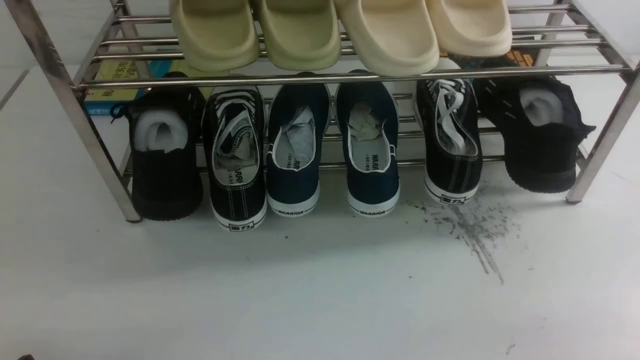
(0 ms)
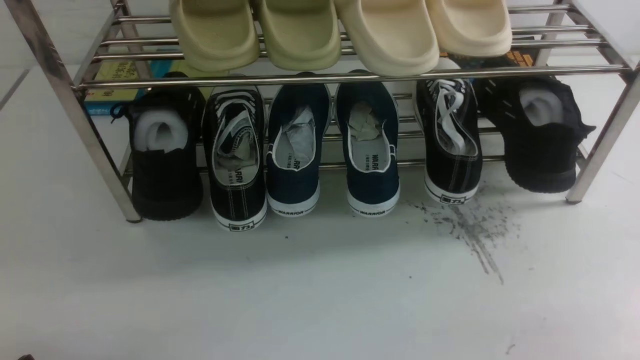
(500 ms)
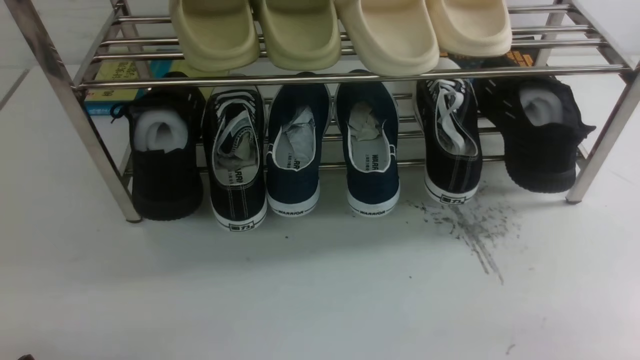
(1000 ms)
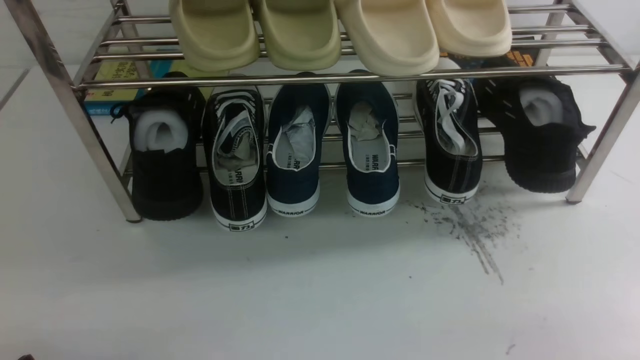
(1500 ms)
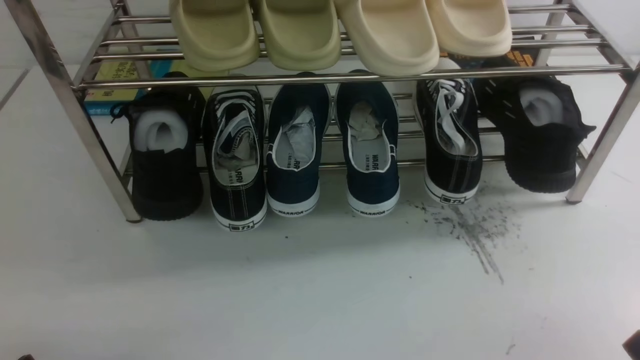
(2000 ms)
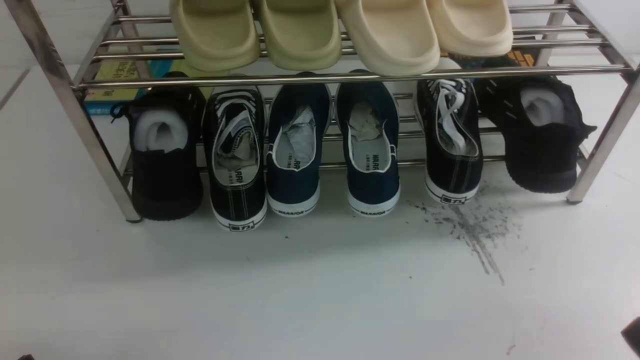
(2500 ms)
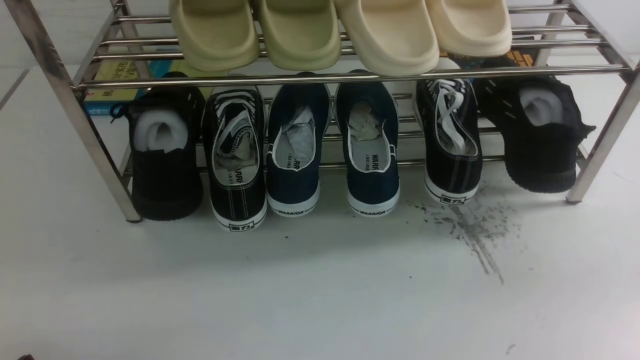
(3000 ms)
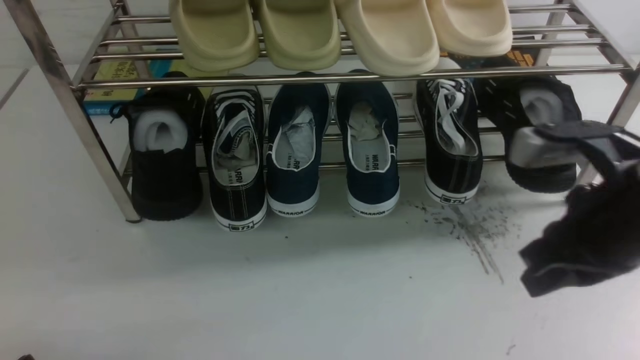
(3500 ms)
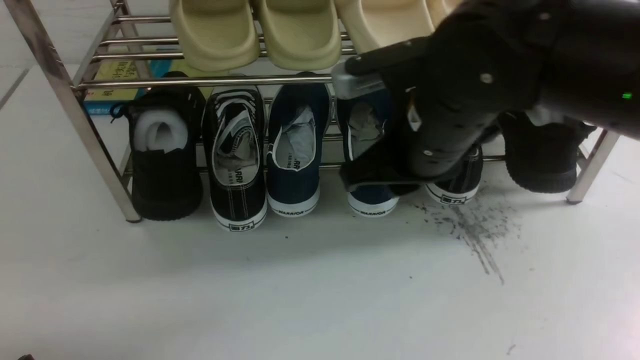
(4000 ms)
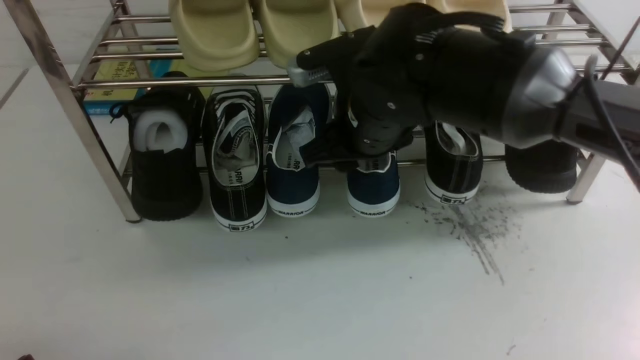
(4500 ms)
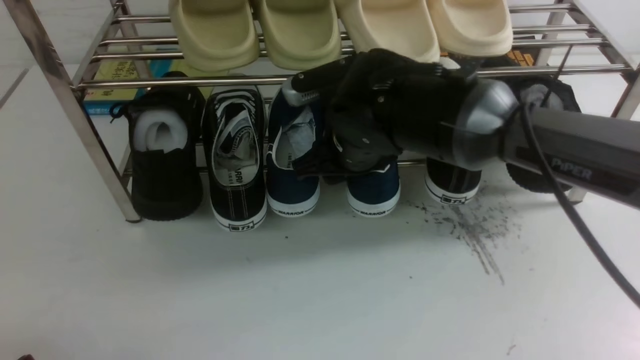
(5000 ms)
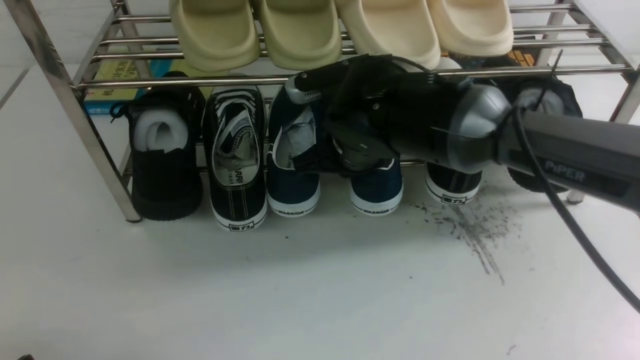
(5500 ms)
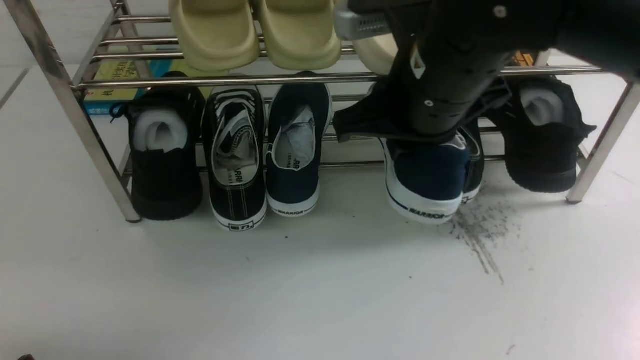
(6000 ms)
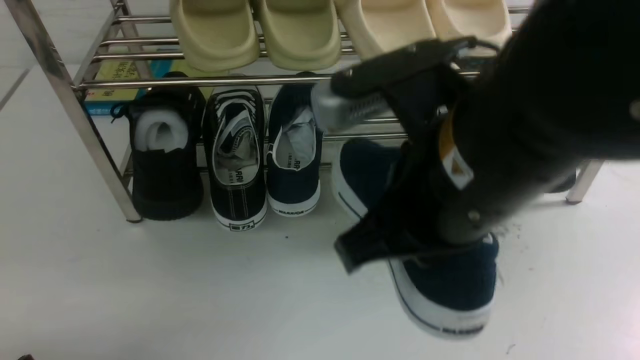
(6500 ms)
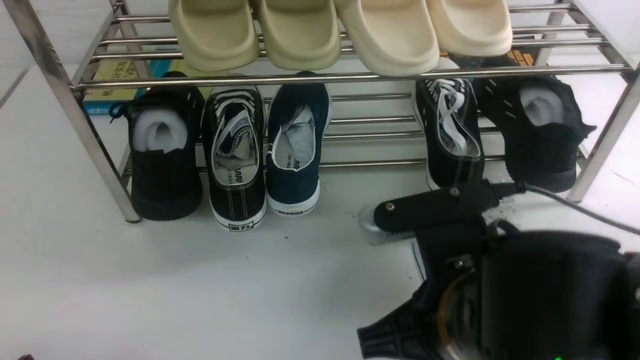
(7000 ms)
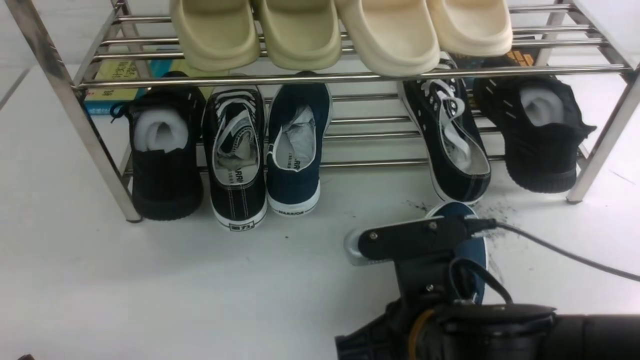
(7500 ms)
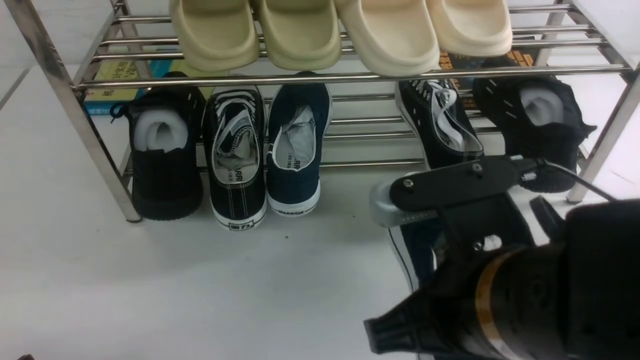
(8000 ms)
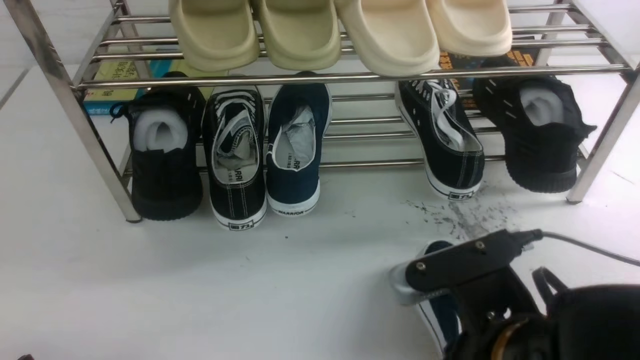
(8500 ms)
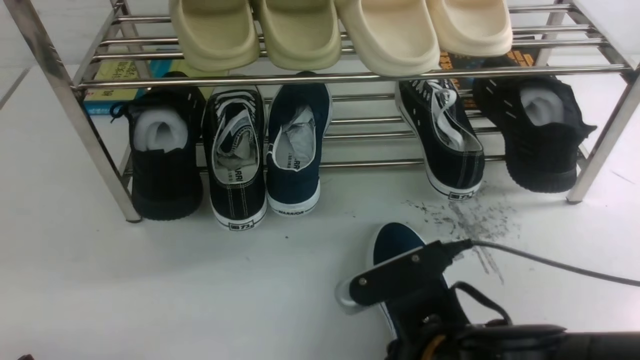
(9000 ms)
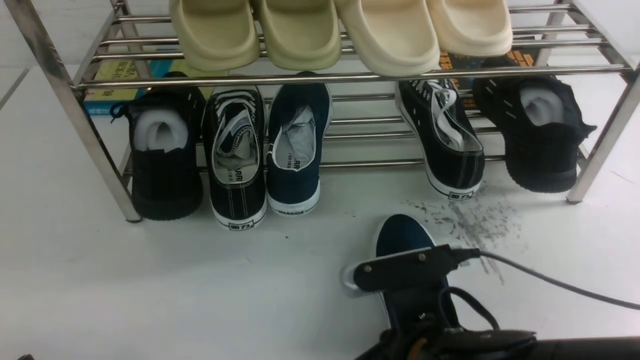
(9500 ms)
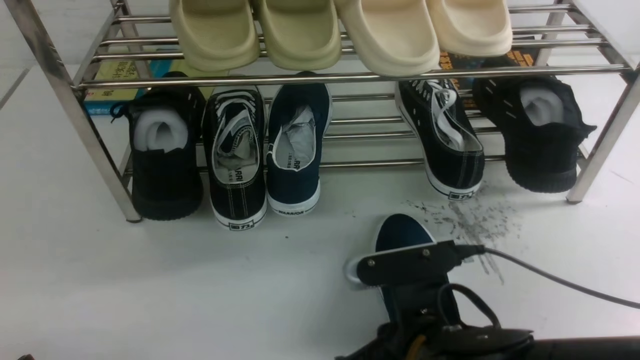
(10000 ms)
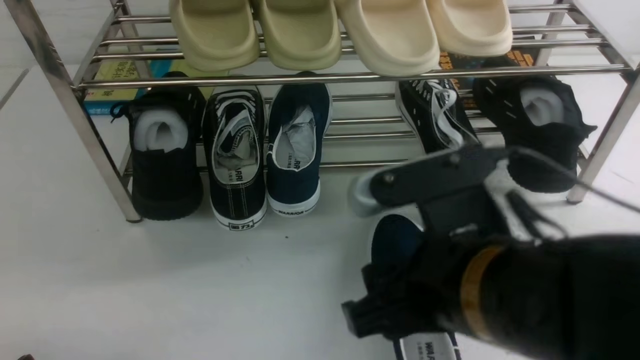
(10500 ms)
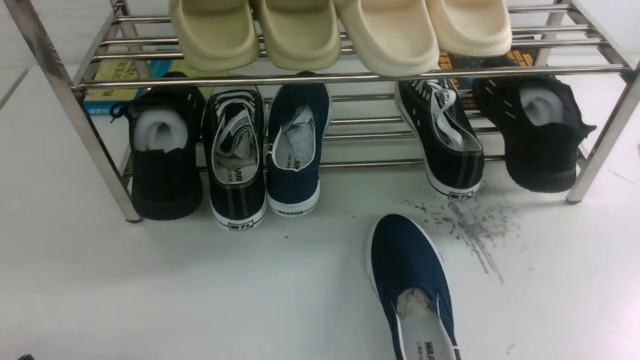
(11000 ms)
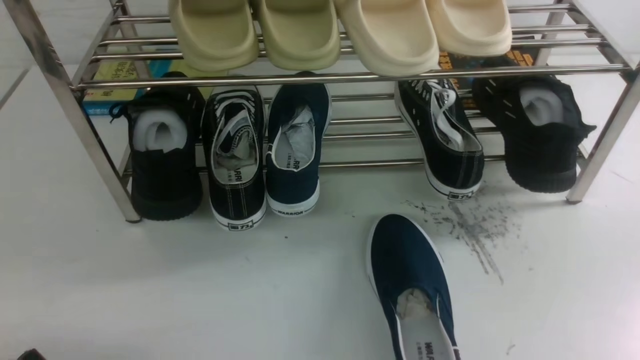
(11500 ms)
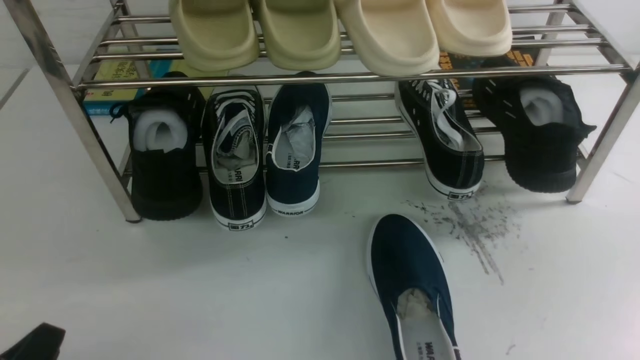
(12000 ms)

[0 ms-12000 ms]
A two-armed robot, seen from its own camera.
Step, 0 ms to 5500 ms: use the right arm to clamp a shoe in the middle of the shoe rack.
Step, 6000 ms to 10500 ms: use the right arm to take out the clamped shoe from the shoe rack and put it down.
2000 ms to 4000 ms: The right gripper heads forward, to the left and upward, covering about 35 cm, and closes, then reopens.
4000 ms to 6000 ms: The right gripper closes its fingers.
6000 ms to 8000 ms: The right gripper travels backward and downward by approximately 15 cm.
8000 ms to 10000 ms: The right gripper travels downward by about 10 cm, and opens.
10000 ms to 12000 ms: The right gripper goes approximately 30 cm to the right, upward and backward, and closes.

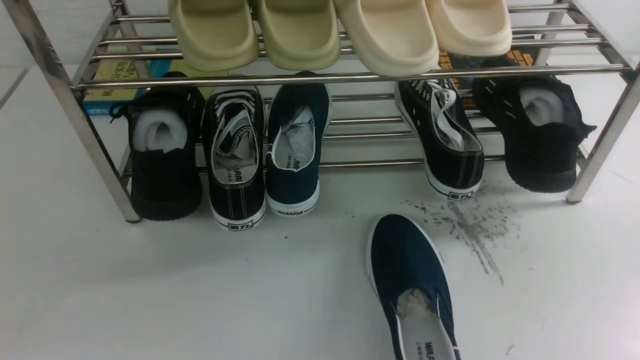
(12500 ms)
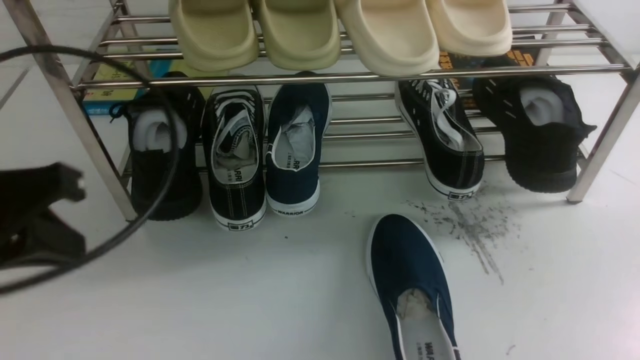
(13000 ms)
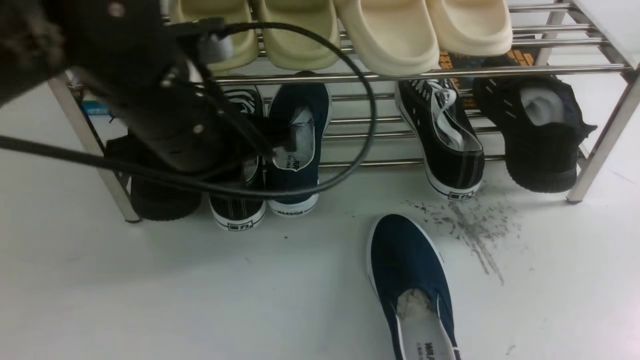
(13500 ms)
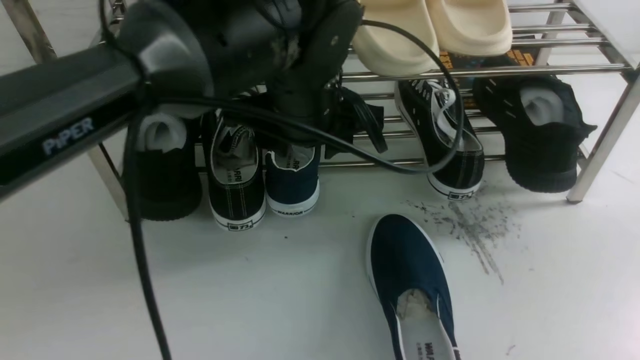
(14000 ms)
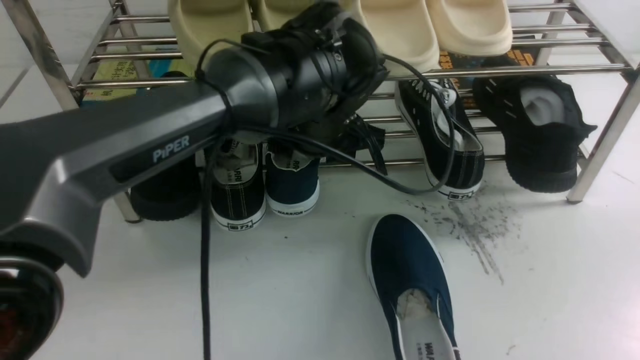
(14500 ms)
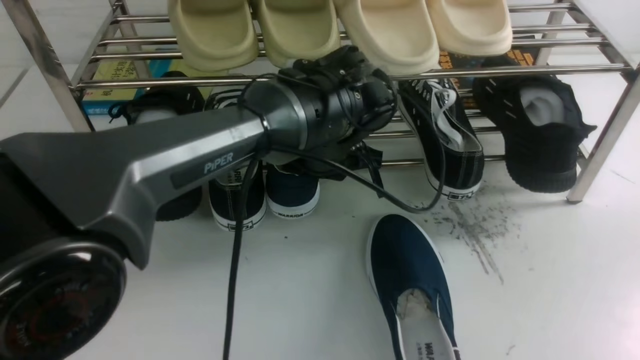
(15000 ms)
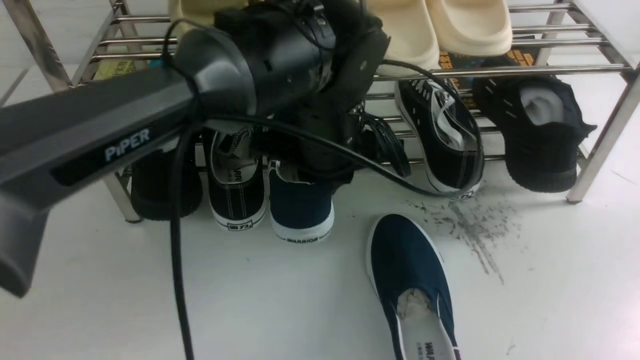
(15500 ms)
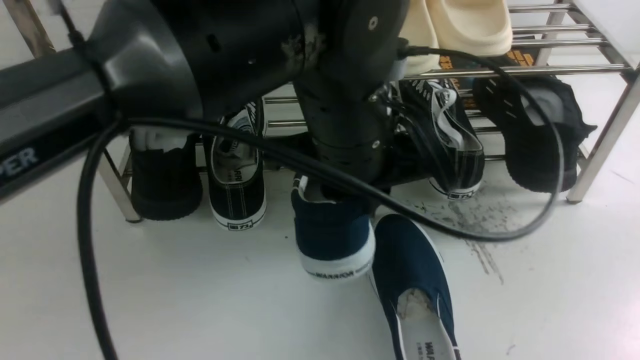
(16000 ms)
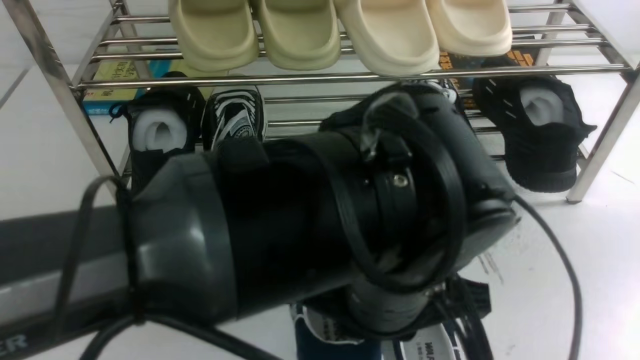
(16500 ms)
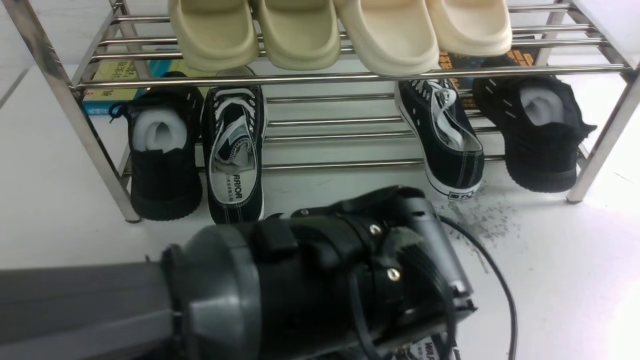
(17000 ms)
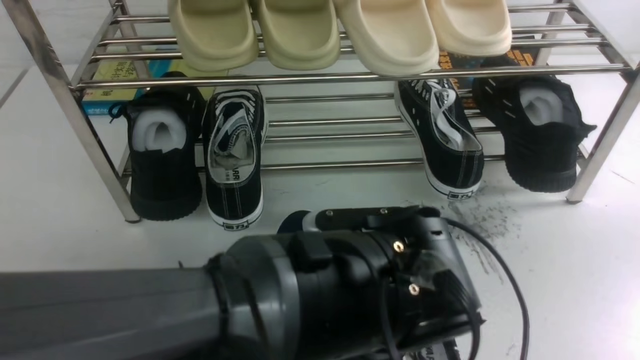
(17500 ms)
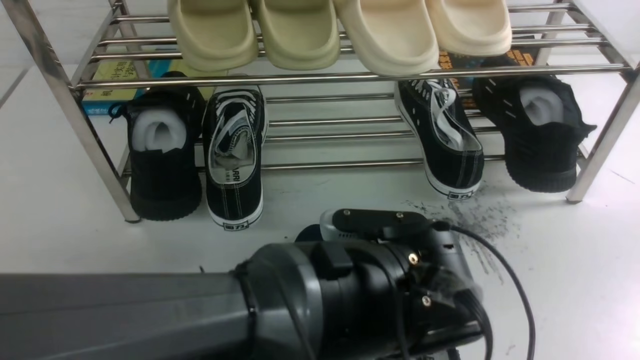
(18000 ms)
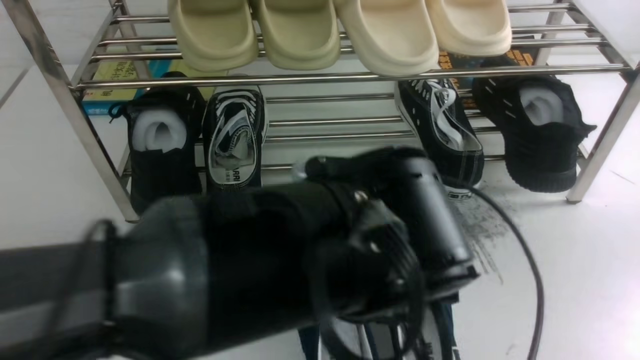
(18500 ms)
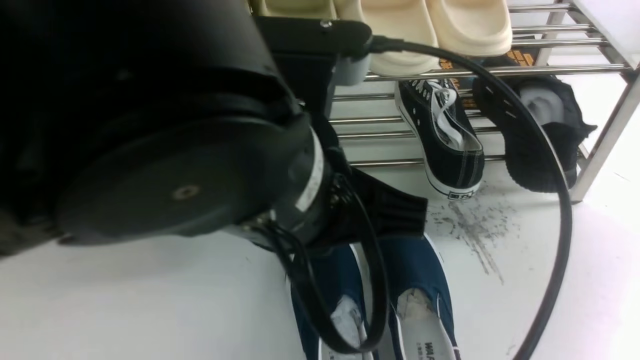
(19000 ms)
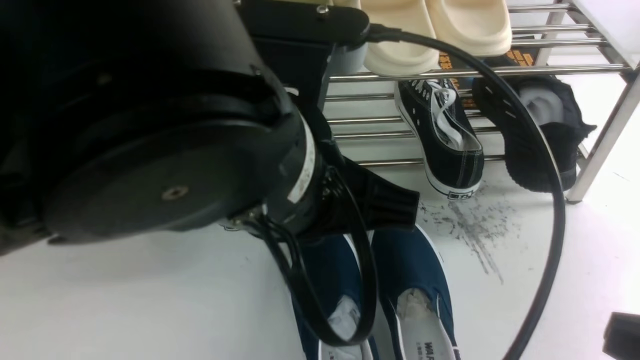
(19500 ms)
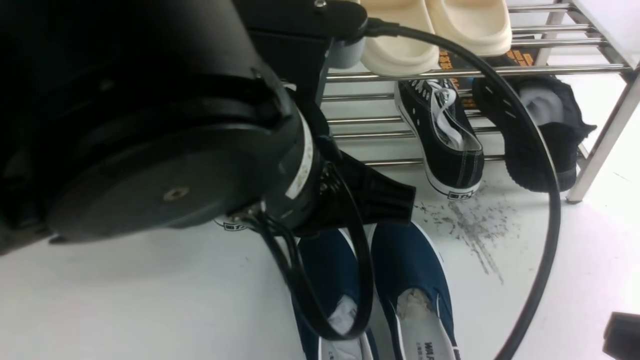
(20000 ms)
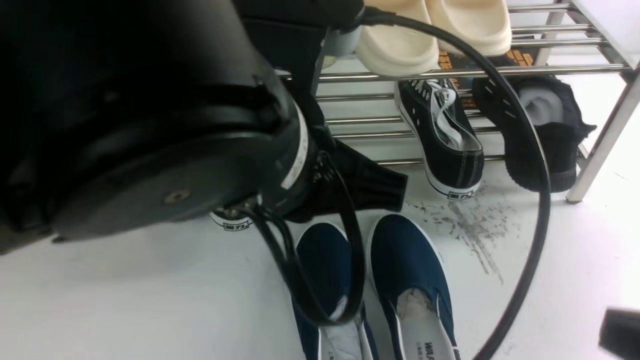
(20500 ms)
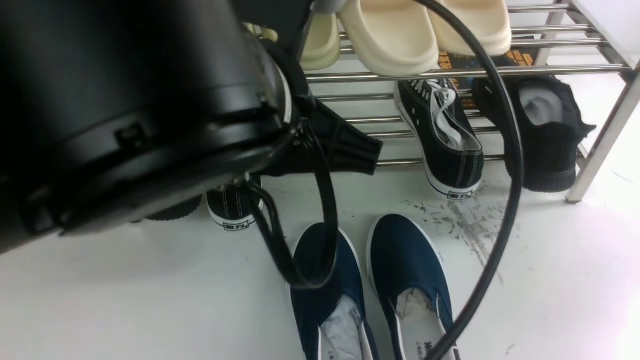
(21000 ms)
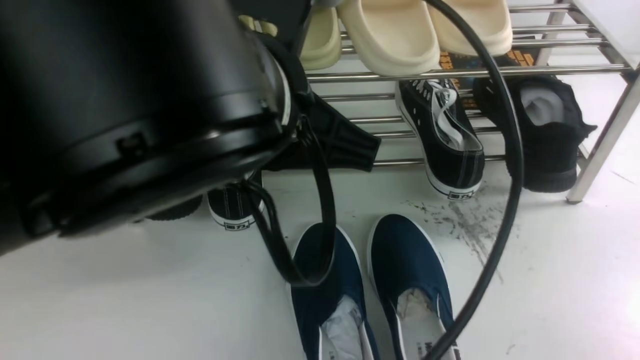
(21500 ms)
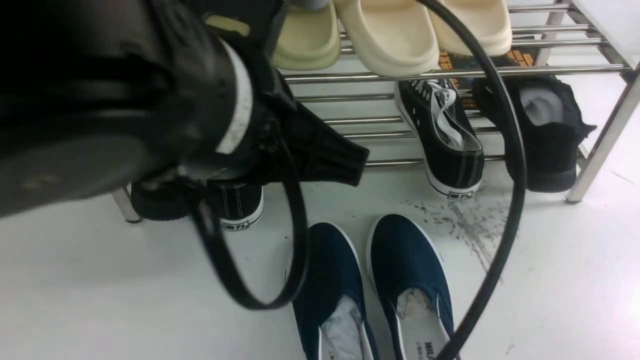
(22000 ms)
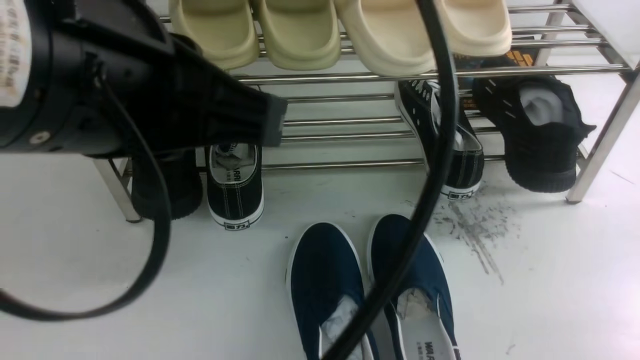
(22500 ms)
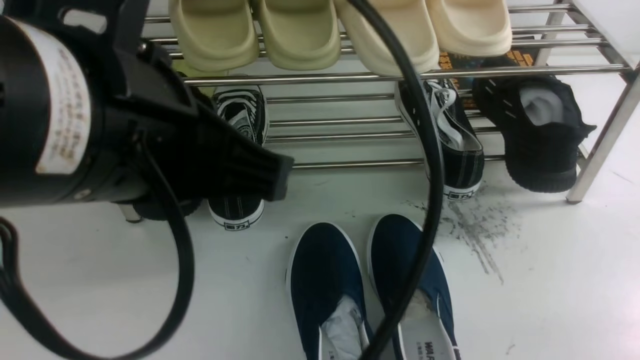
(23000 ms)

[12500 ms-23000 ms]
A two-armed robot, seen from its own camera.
Step, 12500 ms to 15500 ms: use the left arm to clamp a shoe in the middle of the shoe rack.
Step, 16000 ms to 18500 ms: Use your left arm to remove the clamped shoe from the shoe rack and put it down.
12500 ms to 14500 ms: The left gripper travels forward and to the right by about 40 cm, and opens up.
14500 ms to 16500 ms: The left gripper shifts some 20 cm backward, and closes up.
16500 ms to 19000 ms: The left gripper shifts some 10 cm upward and to the left, and opens, then closes once more.
19000 ms to 21000 ms: The right gripper goes some 10 cm downward.
21000 ms to 23000 ms: The right gripper moves downward, roughly 5 cm; the left gripper shifts approximately 5 cm to the left.
